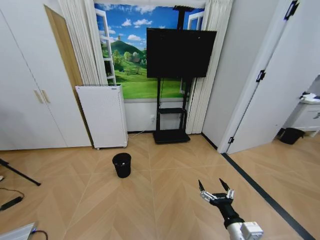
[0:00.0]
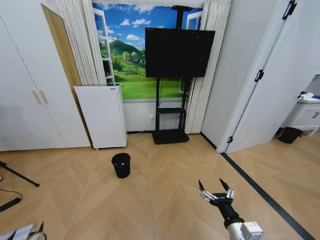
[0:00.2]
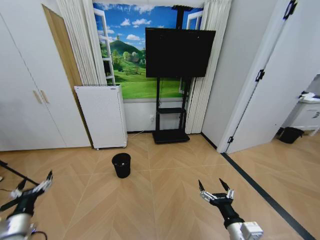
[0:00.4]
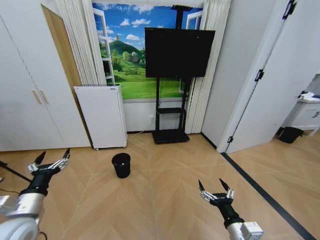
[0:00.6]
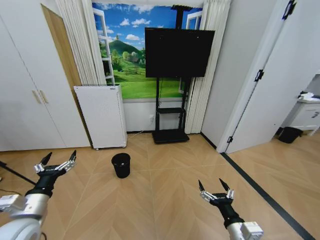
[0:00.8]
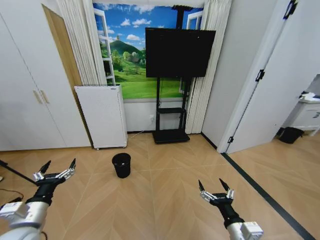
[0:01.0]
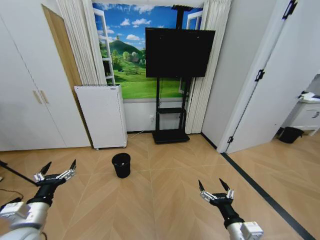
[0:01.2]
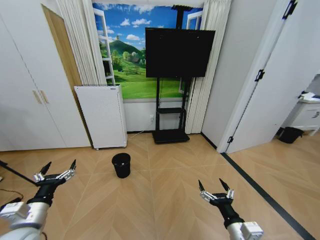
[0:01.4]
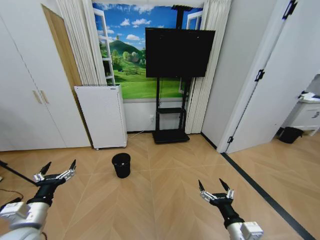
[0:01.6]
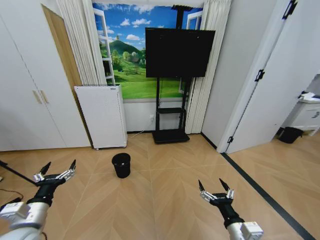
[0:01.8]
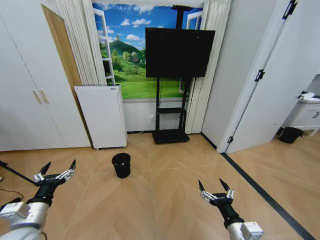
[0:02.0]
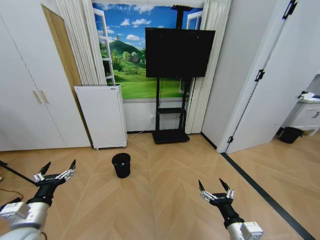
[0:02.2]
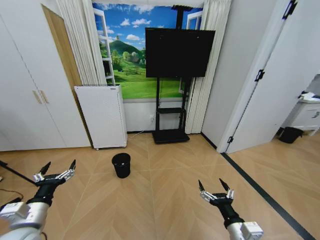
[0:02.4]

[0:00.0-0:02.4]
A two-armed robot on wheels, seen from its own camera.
Task of the whole recording: Pick up the trash bin and place the garbage on the floor into it.
0:00.0 to 0:01.2: The left gripper goes about 50 cm upward, forward and to the right.
0:01.2 to 0:02.4: Both grippers stay put.
